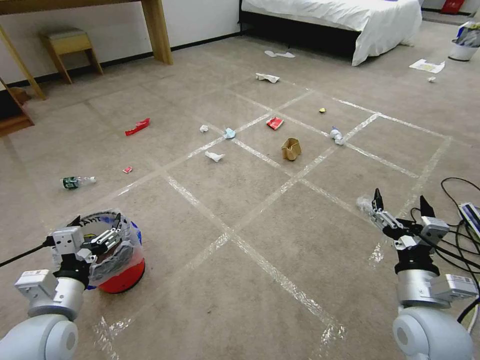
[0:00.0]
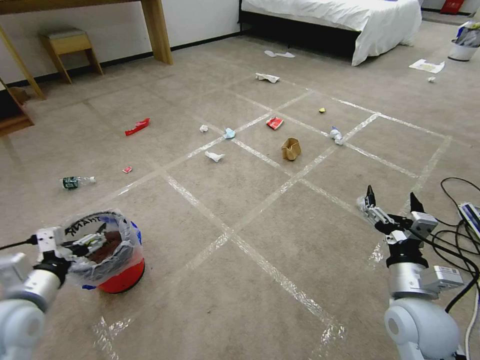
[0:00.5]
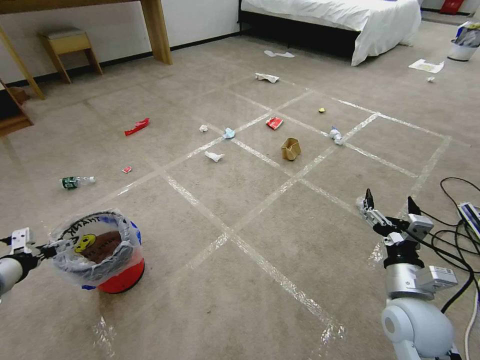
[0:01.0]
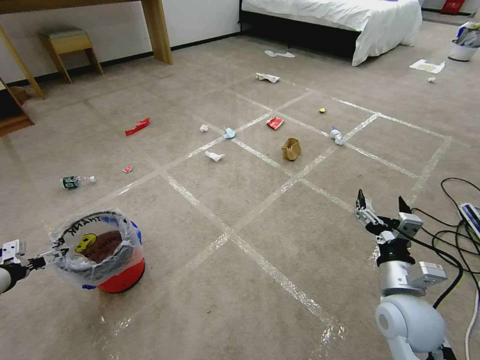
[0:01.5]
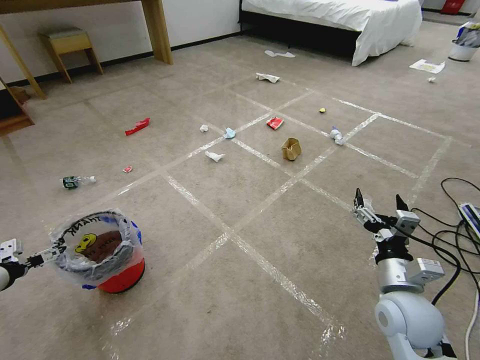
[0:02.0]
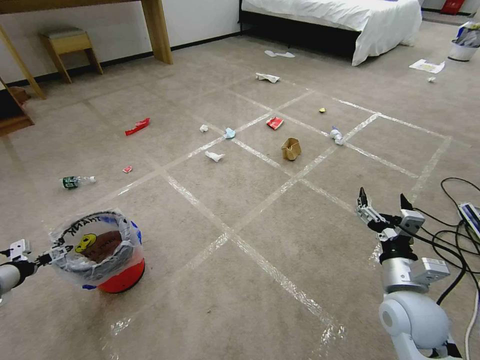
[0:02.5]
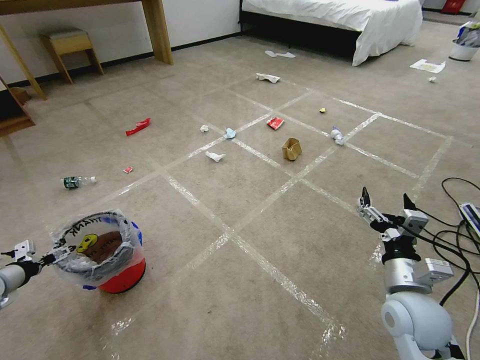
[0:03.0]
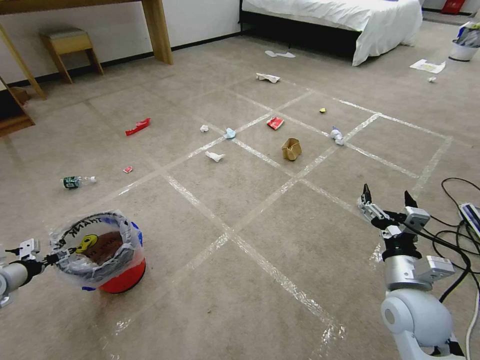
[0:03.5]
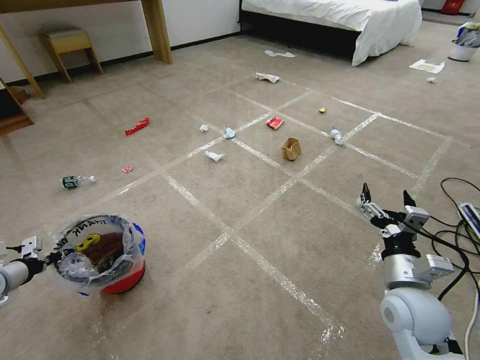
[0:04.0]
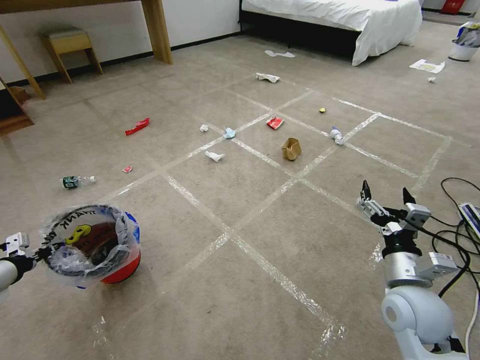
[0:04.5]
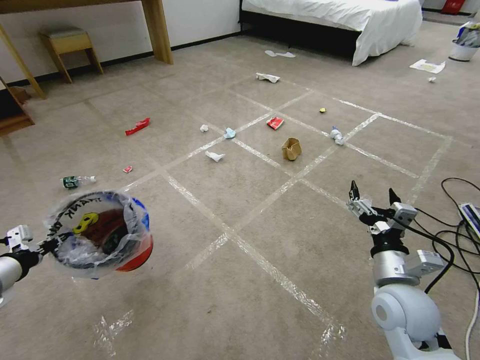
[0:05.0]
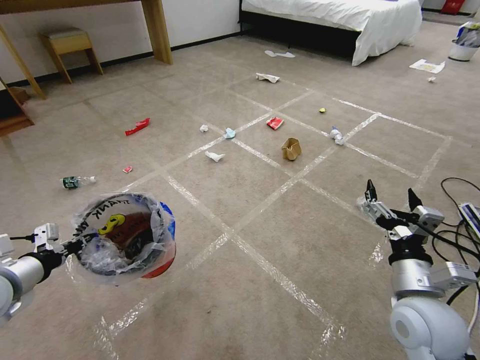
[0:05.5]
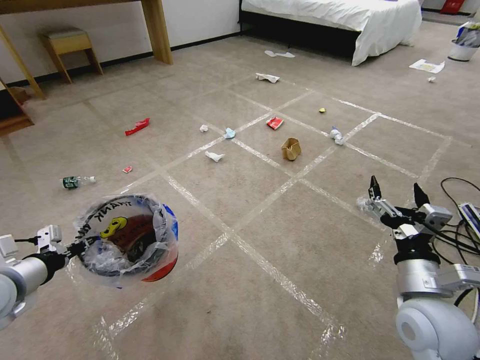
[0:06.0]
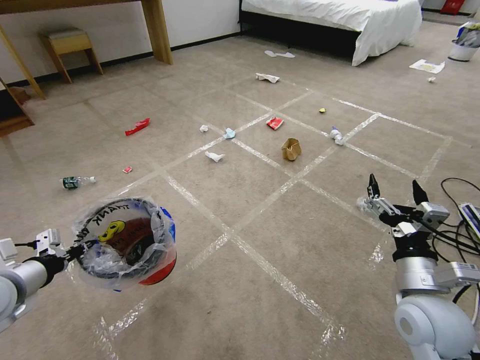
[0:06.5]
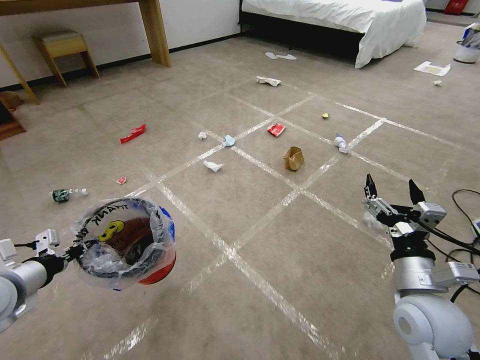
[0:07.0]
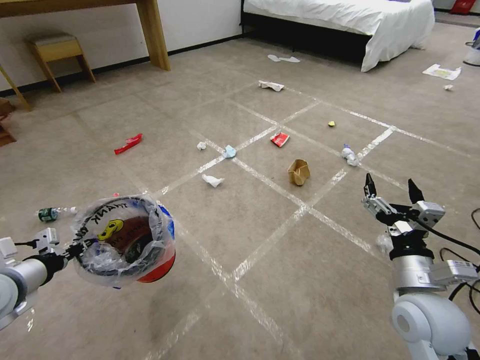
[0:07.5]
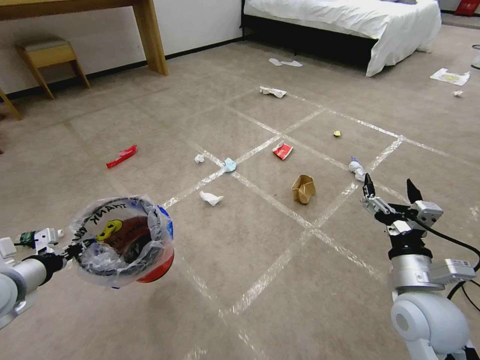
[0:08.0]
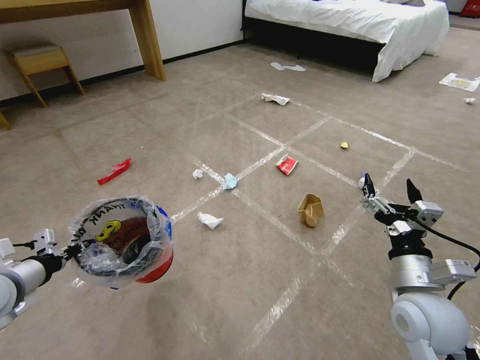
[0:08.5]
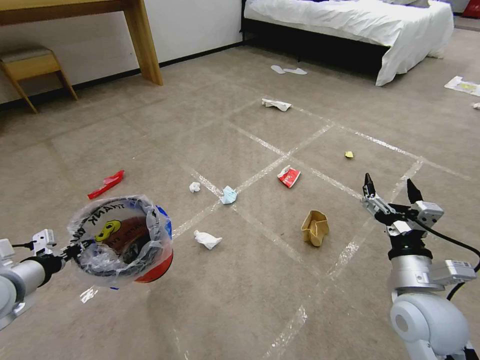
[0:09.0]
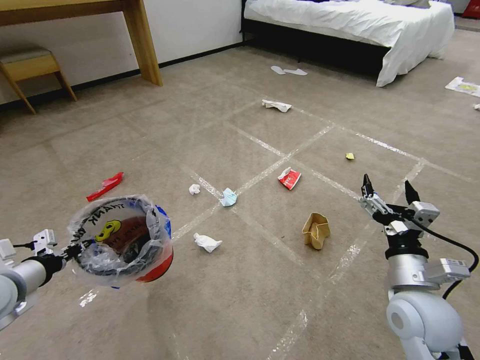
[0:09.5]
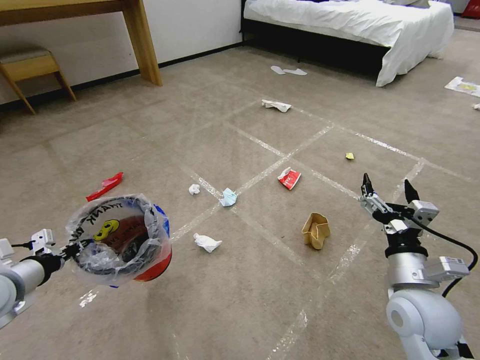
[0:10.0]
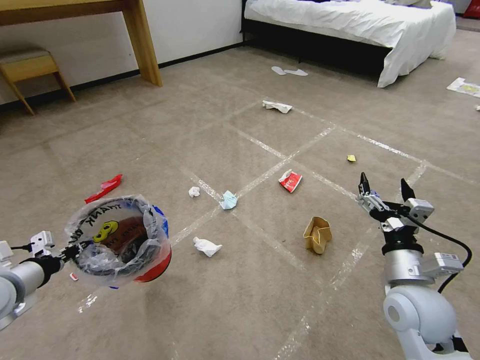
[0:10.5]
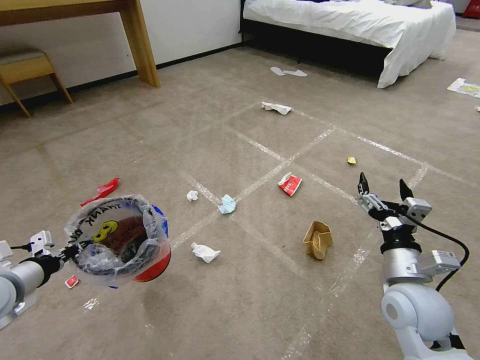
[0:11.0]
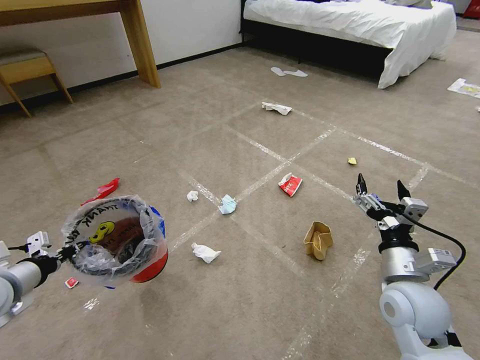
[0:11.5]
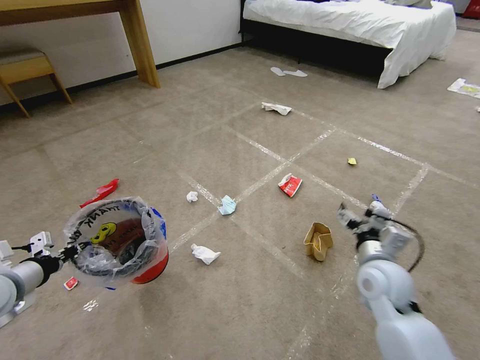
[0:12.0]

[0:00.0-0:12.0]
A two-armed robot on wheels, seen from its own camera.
Task of the whole recording: Pick up the trash bin and place the garbage on the floor into it.
0:02.0 to 0:04.0: The left gripper closes its fingers.
0:04.0 to 0:06.0: The left gripper heads to the right, upward and backward, covering roughly 20 cm.
0:10.0 to 0:12.0: The right gripper shifts roughly 5 cm forward.

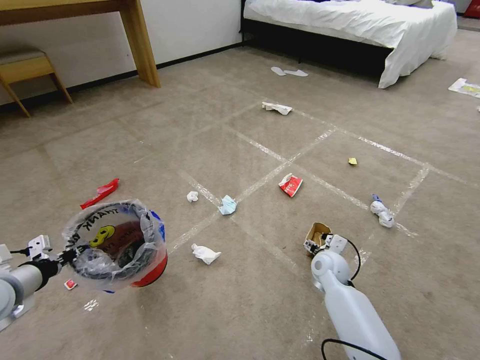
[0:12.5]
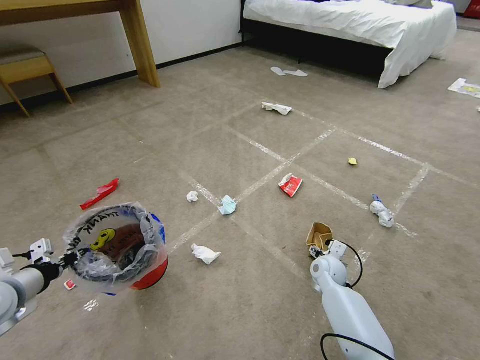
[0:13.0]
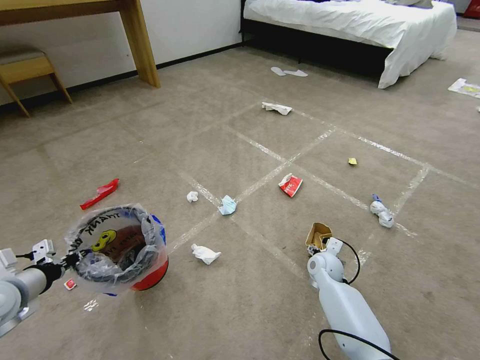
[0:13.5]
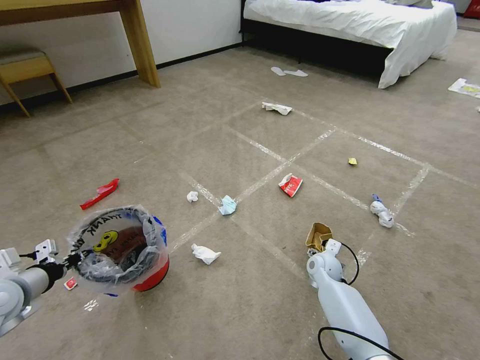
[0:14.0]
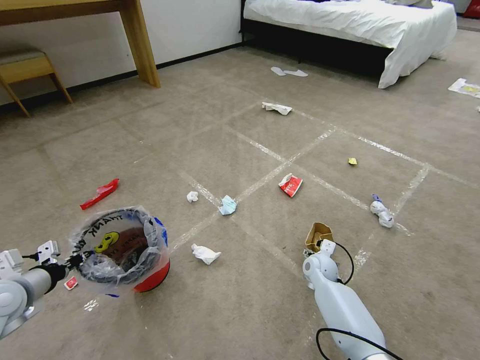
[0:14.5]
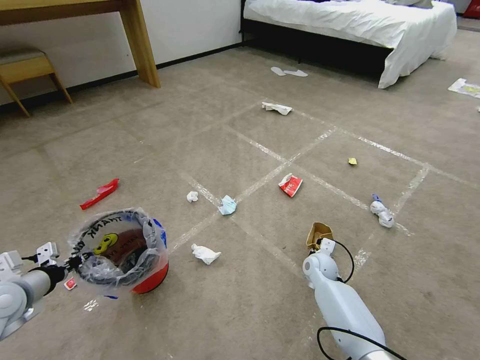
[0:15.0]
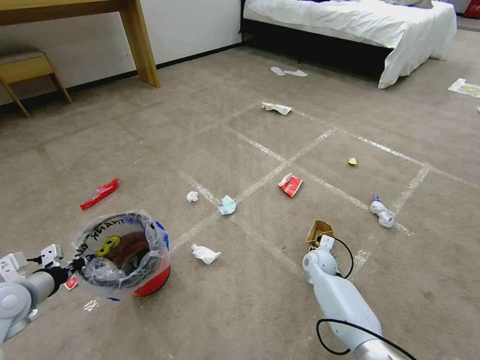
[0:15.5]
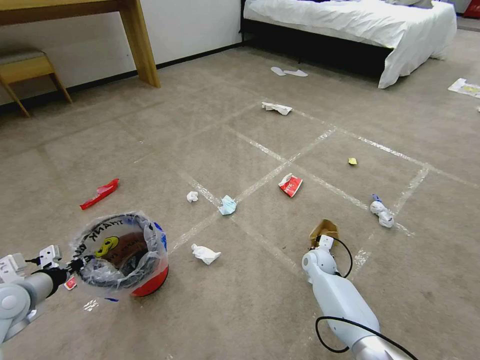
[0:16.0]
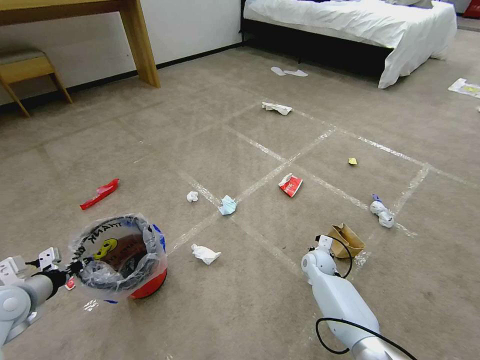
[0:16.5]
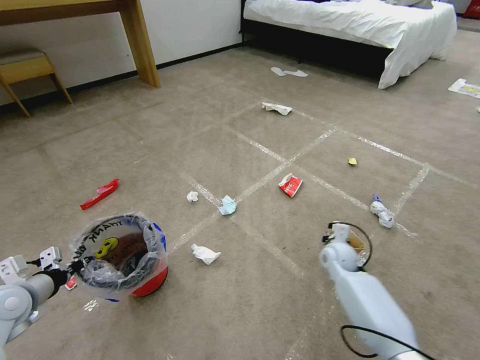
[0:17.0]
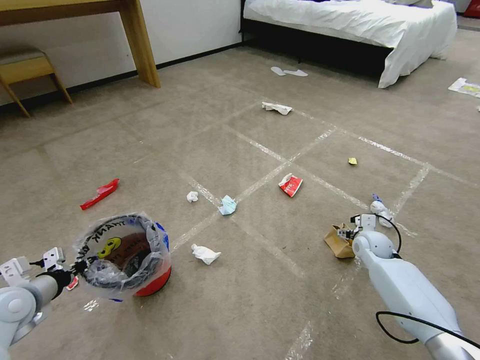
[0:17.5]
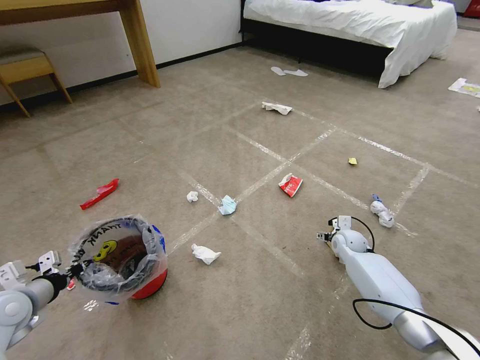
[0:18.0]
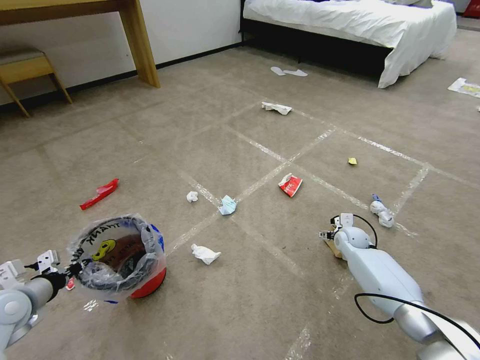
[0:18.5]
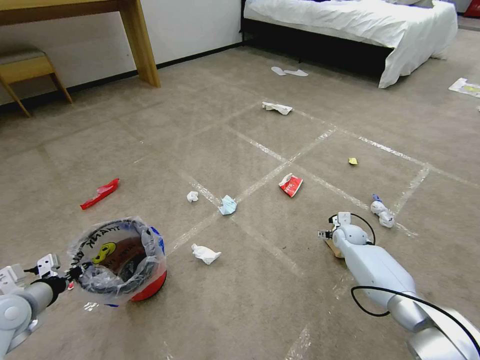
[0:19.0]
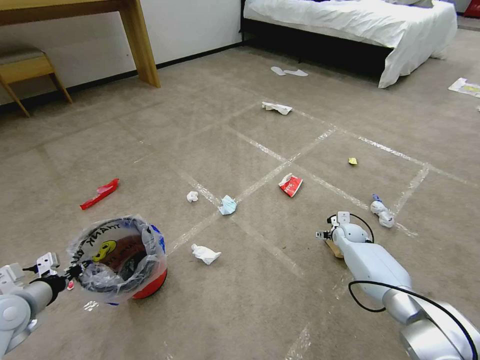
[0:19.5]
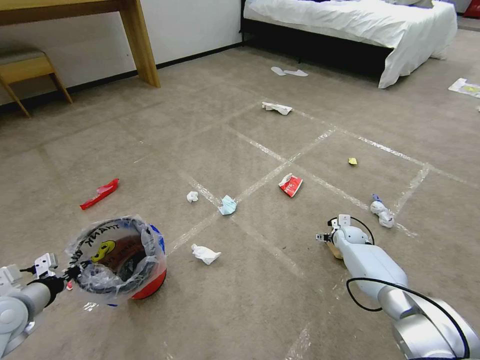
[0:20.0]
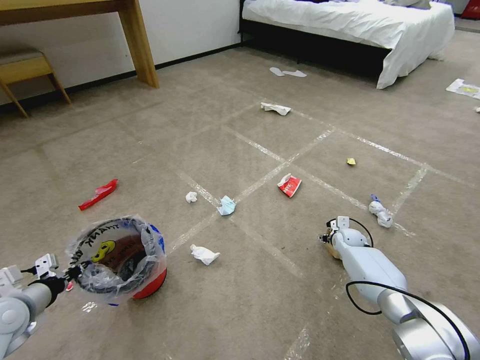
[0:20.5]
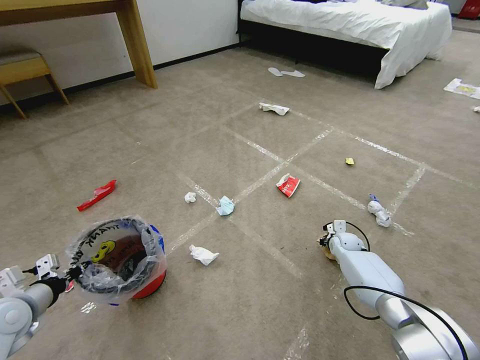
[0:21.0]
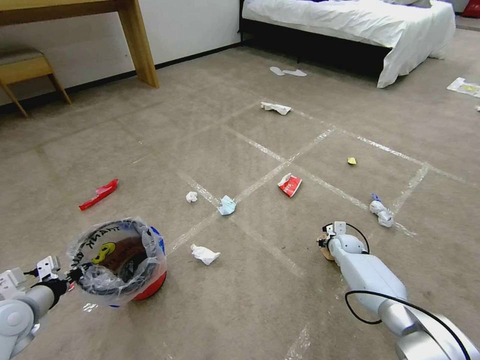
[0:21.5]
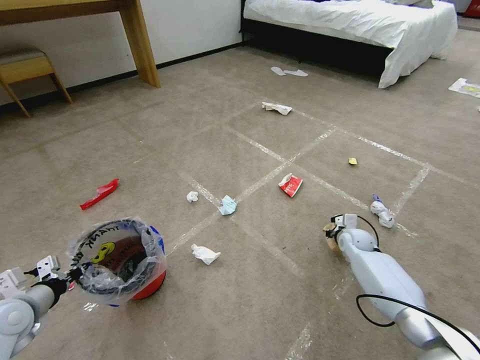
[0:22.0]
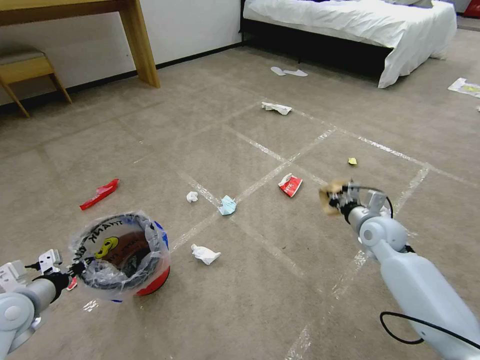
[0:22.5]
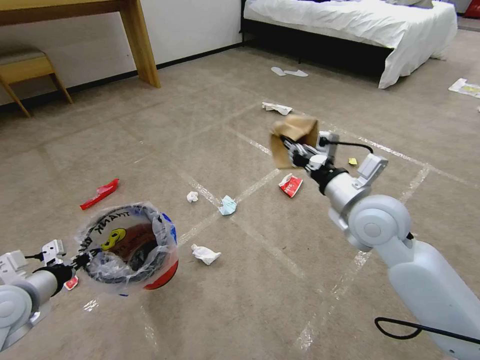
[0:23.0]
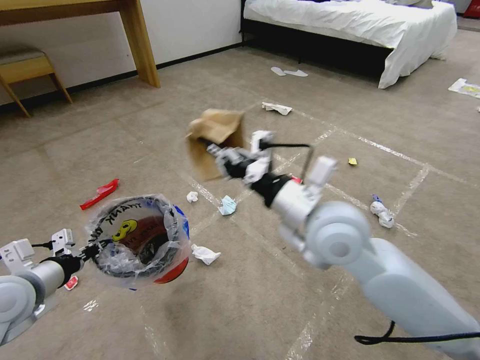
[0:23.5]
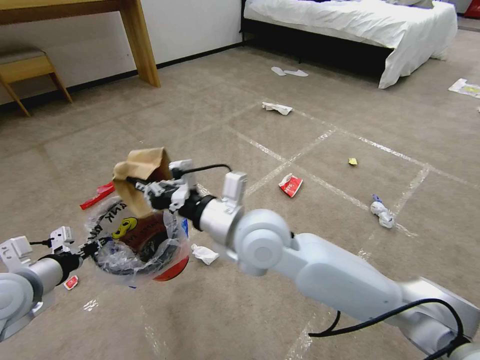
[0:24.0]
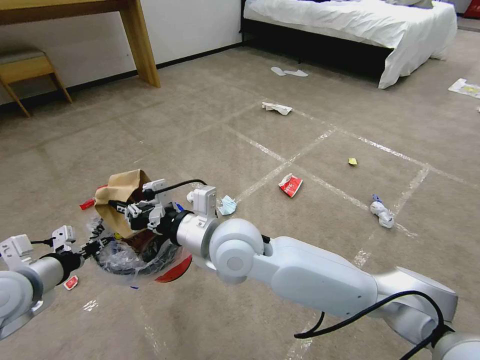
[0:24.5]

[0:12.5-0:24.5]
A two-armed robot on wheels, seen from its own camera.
Task of the whole recording: Pick up the trash bin and place the garbage on the floor into it.
0:12.5 to 0:14.5: The right gripper goes approximately 5 cm downward.
0:14.5 to 0:16.5: The right gripper closes up.
0:16.5 to 0:18.5: The right gripper heads to the right, forward and upward, covering about 15 cm, and opens its fingers.
0:18.5 to 0:20.5: The grippers move only a little.
0:20.5 to 0:22.5: The right gripper goes about 20 cm upward and backward, and closes up.
0:22.5 to 0:24.5: The right gripper moves to the left, some 35 cm. The left gripper is displaced upward by approximately 10 cm.

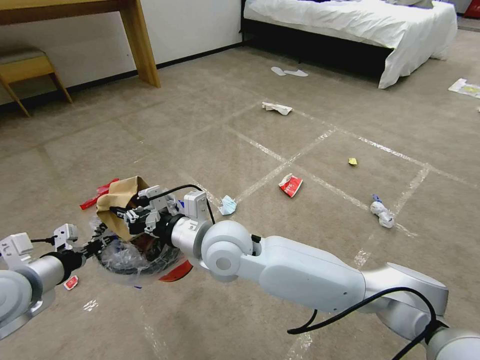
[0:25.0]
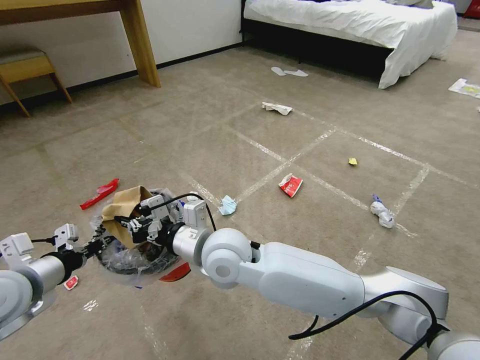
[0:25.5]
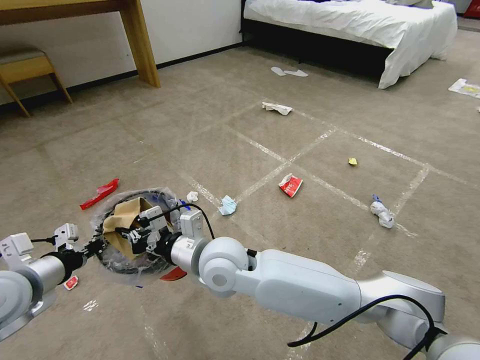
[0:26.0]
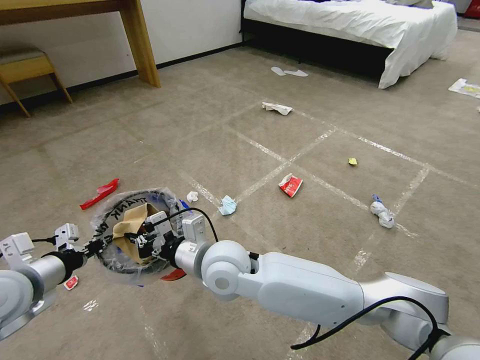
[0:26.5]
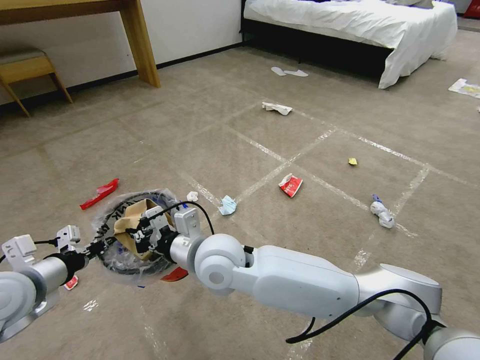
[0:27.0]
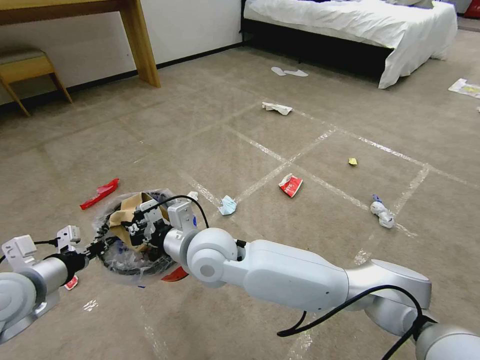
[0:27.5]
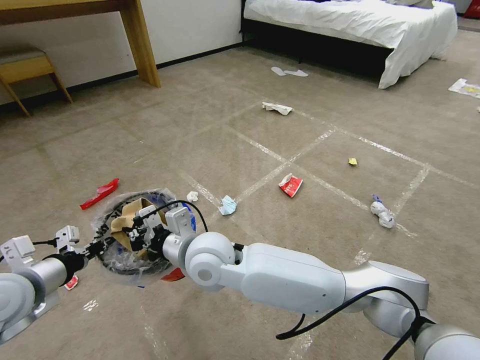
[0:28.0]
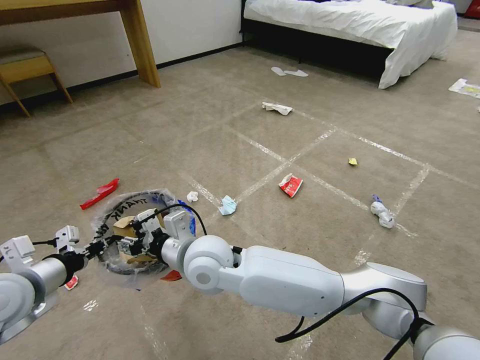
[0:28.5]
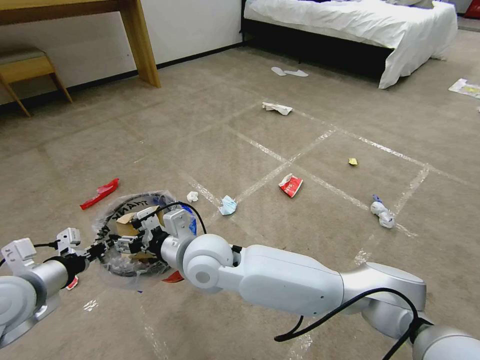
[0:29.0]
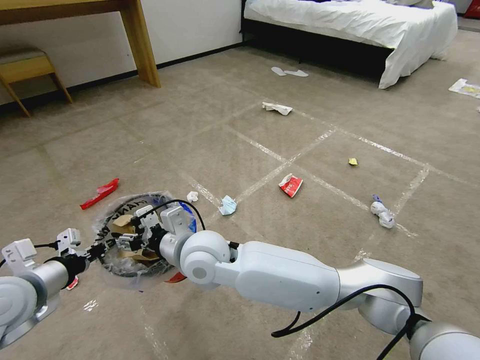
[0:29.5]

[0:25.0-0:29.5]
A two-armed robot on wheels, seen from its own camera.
Task of the whole recording: Pick up the trash bin and place the garbage on the floor into it.
0:25.0 to 0:27.0: There are only small adjustments of the grippers.
0:27.0 to 0:29.5: The right gripper opens.
